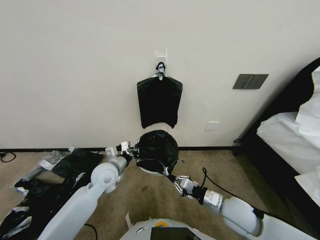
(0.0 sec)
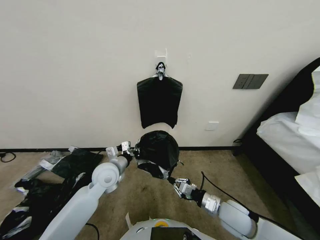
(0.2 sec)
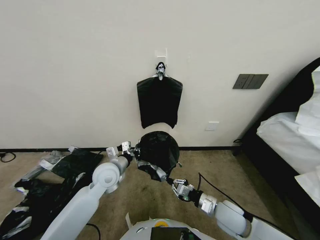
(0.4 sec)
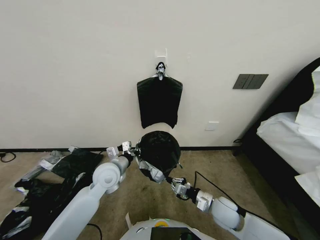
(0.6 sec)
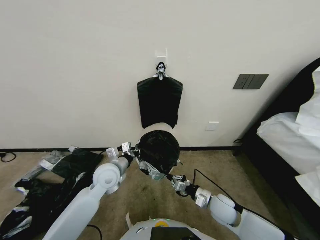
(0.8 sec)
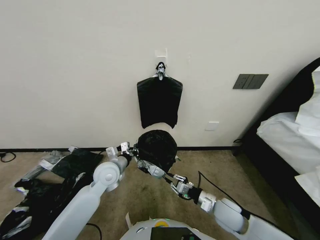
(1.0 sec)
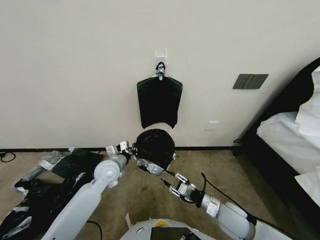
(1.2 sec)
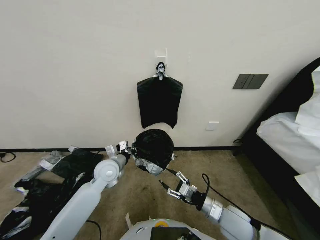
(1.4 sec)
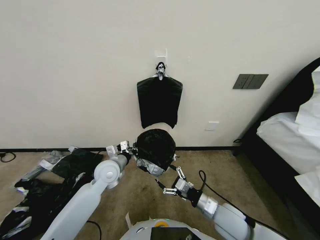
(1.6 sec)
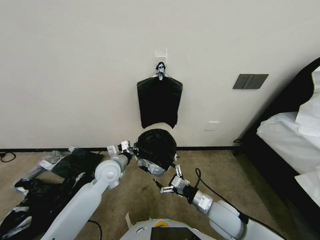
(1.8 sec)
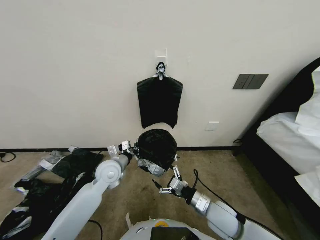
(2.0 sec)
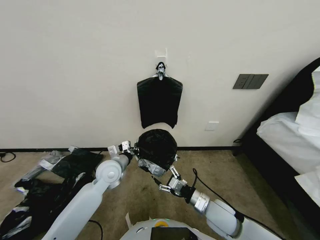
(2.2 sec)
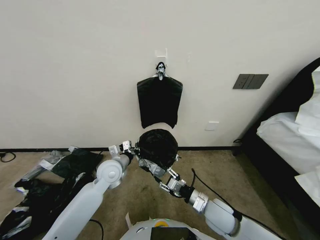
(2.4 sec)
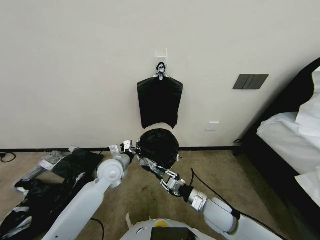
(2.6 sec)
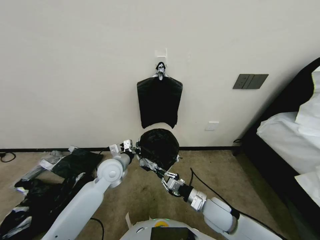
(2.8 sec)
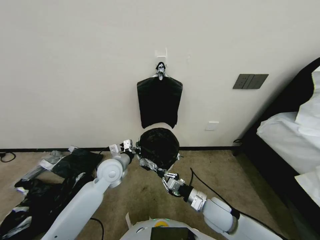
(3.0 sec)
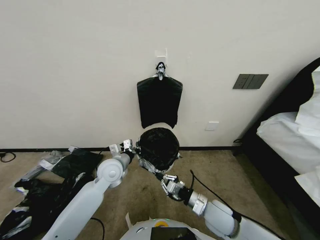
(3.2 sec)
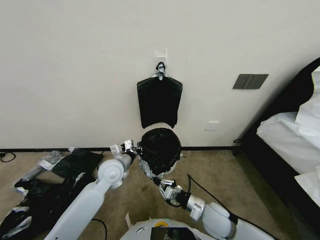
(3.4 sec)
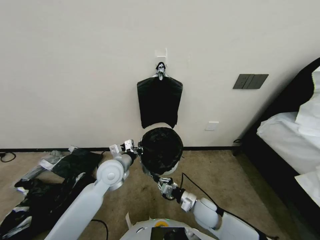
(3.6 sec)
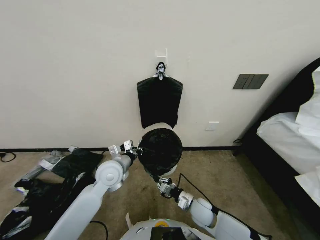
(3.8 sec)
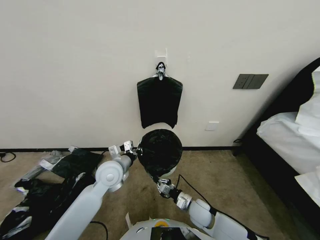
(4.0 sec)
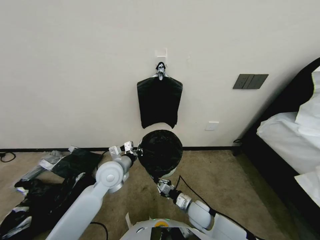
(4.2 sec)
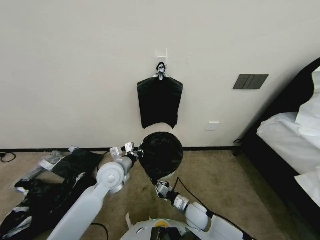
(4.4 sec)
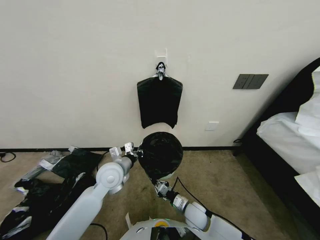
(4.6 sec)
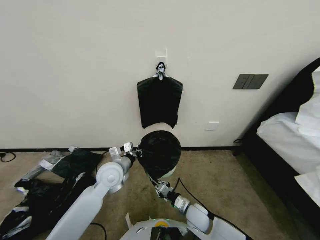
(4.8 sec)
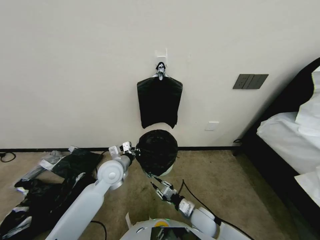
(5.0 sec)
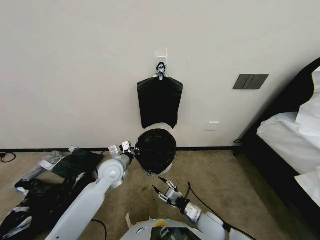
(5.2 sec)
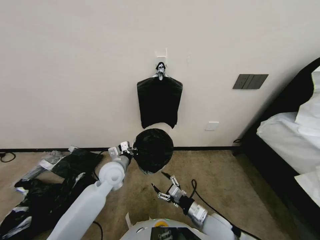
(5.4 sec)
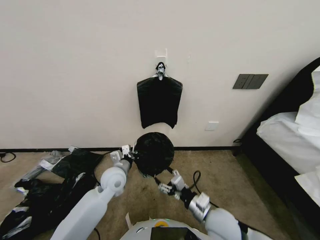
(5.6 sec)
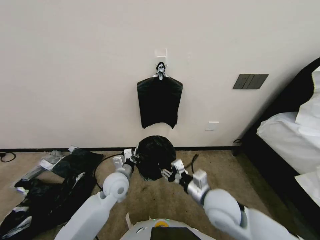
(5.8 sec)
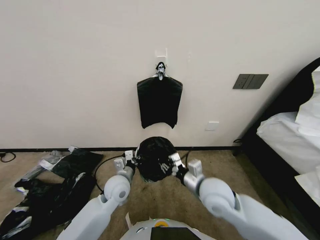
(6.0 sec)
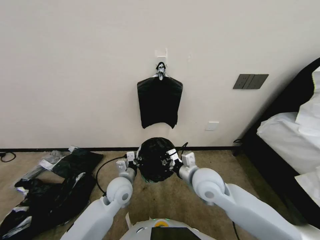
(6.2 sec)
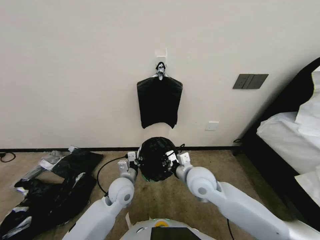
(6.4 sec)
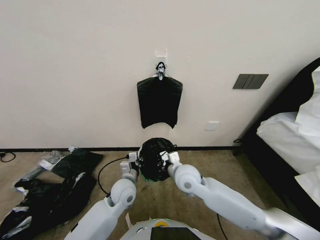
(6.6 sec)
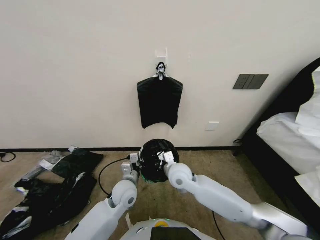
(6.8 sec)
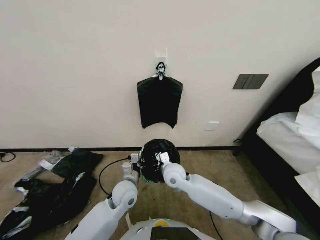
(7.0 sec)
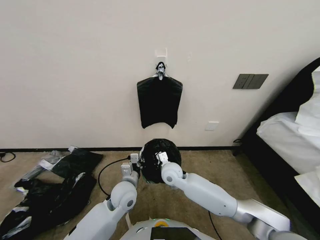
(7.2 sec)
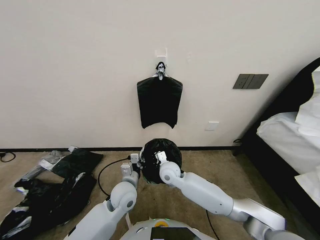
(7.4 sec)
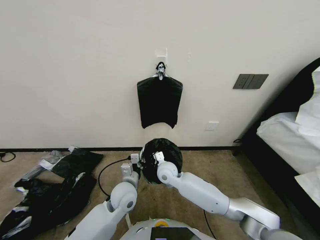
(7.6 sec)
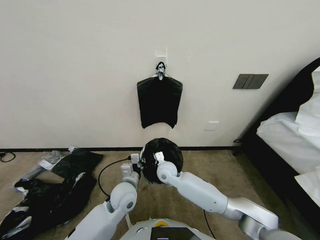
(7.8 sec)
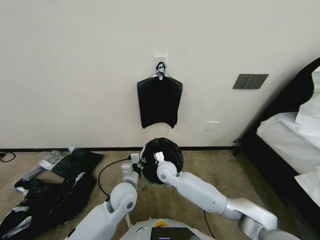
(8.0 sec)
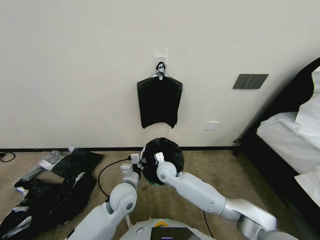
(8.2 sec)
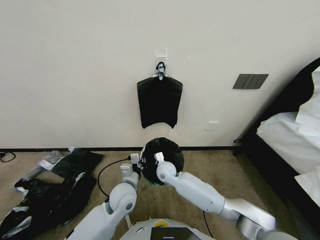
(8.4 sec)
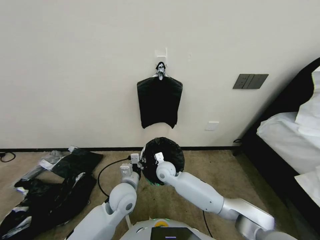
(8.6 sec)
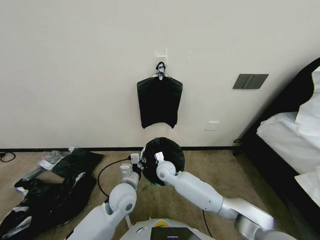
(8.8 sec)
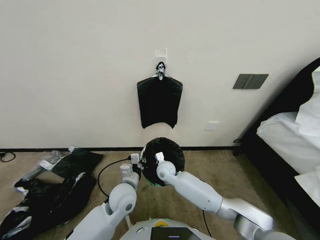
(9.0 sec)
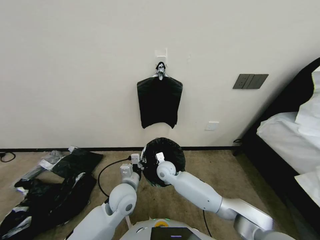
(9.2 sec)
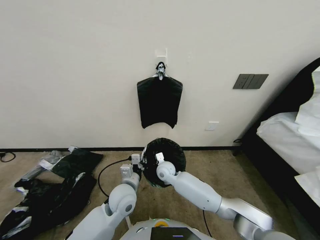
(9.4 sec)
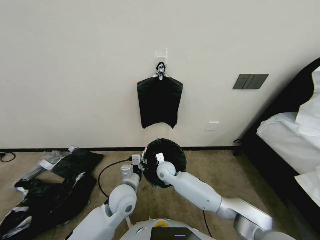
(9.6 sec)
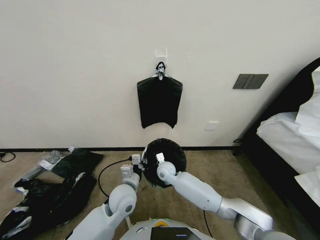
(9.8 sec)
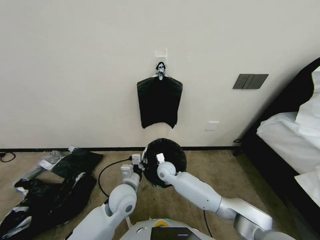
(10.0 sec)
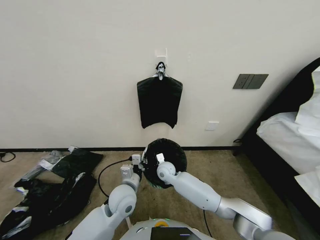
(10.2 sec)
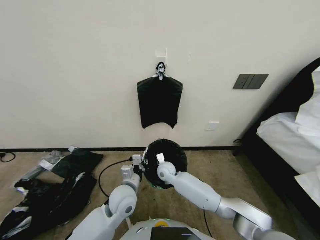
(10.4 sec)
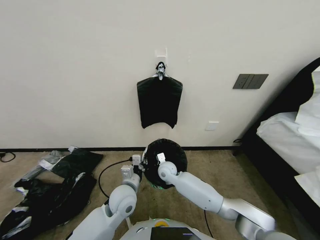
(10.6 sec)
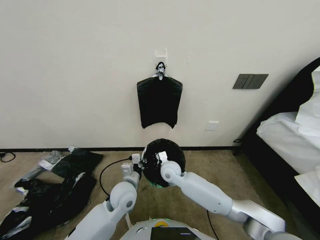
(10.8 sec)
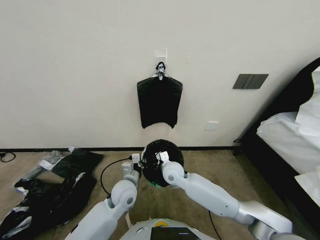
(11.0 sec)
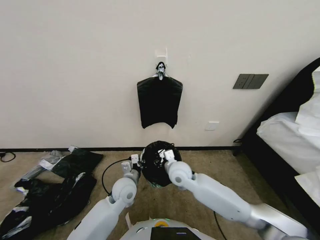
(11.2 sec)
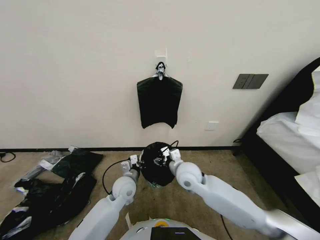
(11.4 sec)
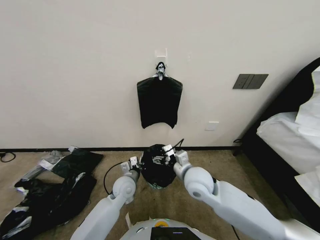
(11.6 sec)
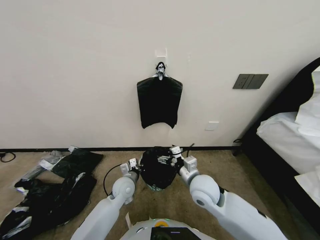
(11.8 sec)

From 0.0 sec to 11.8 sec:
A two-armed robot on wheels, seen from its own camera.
Task of the whole recording: Place a trash bag onto the trash bin.
From 0.0 sec to 1.4 sec: The right gripper opens up.
From 1.4 sec to 3.0 sec: The right gripper moves some 5 cm, and closes up.
From 3.0 sec to 4.4 sec: The right gripper heads downward, covering roughly 10 cm.
From 4.4 sec to 6.0 sec: The right gripper moves upward, roughly 20 cm, and opens its fingers. The left gripper moves downward, some 5 cm.
From 6.0 sec to 7.4 sec: The right gripper is displaced forward, to the left and downward by about 20 cm, and closes its fingers.
From 7.4 sec to 8.8 sec: The right gripper ends up roughly 5 cm from where it was.
From 8.8 sec to 10.4 sec: There are only small adjustments of the grippers.
From 10.4 sec to 11.8 sec: The left gripper goes some 10 cm downward and forward. Meanwhile the right gripper moves upward, backward and to the right, some 20 cm, and opens up.

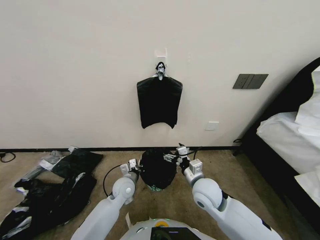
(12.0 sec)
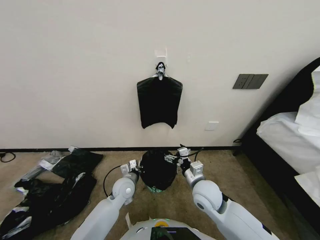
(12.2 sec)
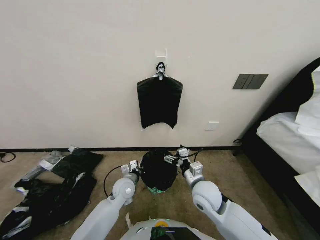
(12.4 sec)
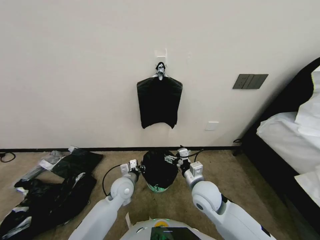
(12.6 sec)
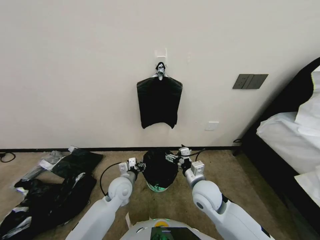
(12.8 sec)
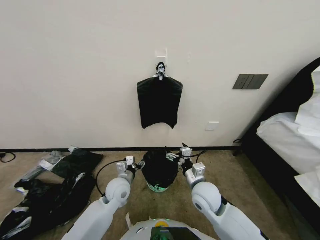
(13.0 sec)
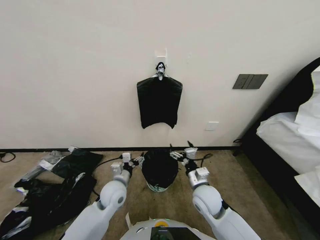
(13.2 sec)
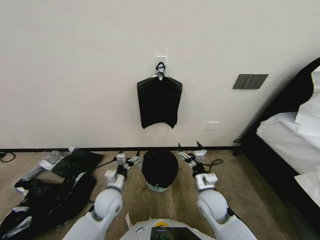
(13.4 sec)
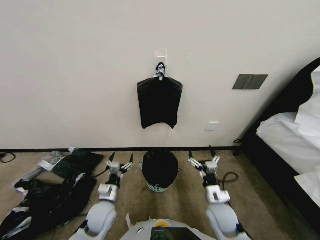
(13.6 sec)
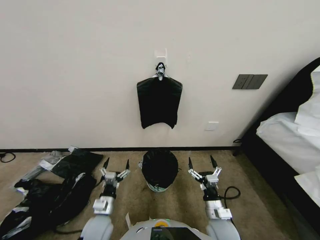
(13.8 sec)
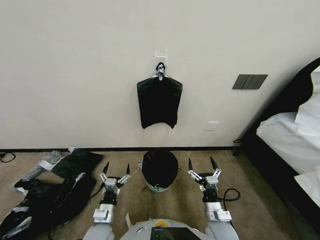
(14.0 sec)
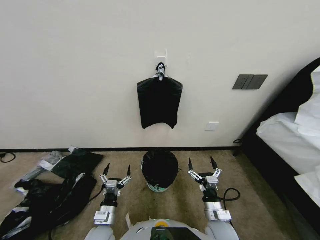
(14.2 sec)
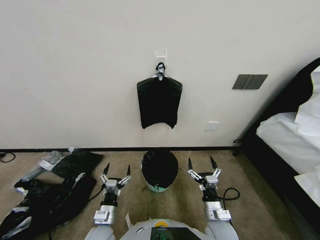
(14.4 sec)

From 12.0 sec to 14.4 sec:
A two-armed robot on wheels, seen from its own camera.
Task of the whole recording: Place a trash bag onto the trash bin.
From 12.0 sec to 13.2 sec: The left gripper changes place by some 5 cm, and opens.
From 13.2 sec to 14.4 sec: The two grippers go approximately 15 cm backward and downward.
